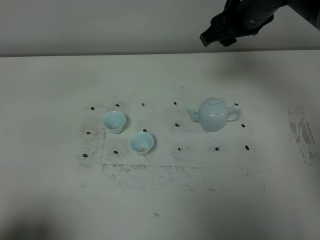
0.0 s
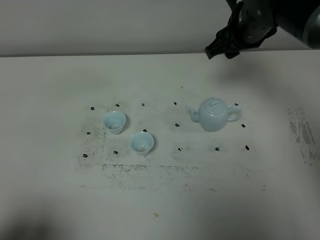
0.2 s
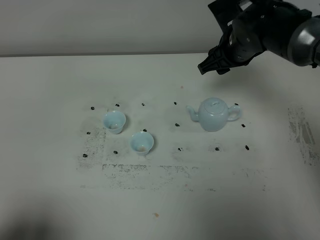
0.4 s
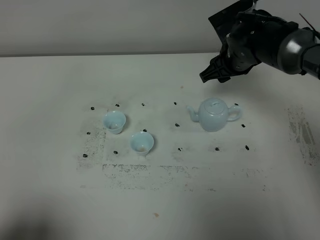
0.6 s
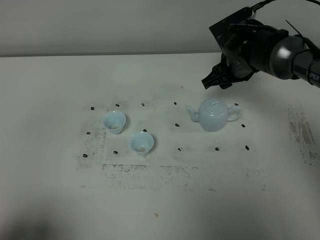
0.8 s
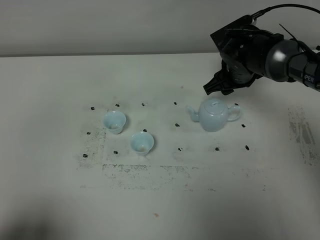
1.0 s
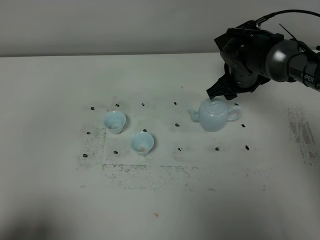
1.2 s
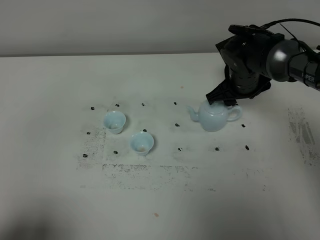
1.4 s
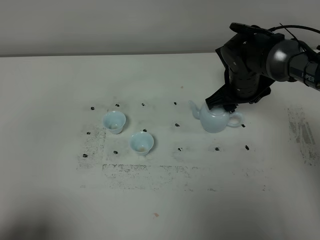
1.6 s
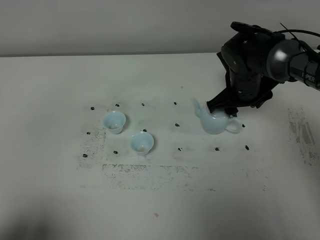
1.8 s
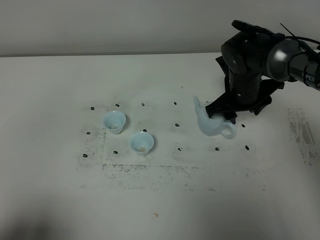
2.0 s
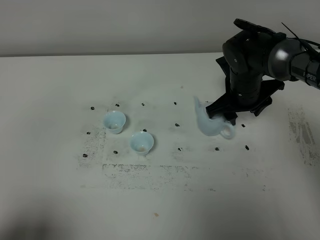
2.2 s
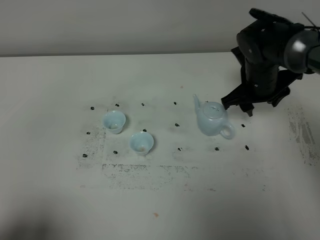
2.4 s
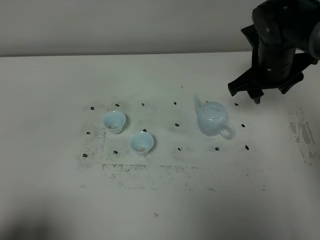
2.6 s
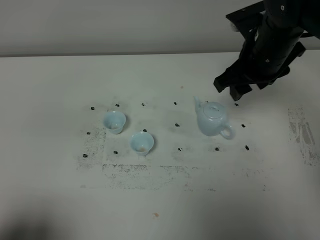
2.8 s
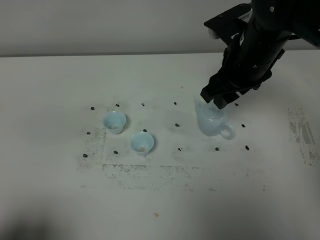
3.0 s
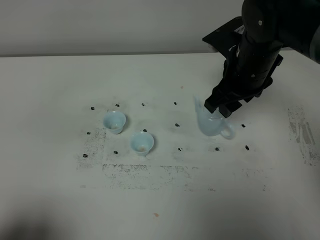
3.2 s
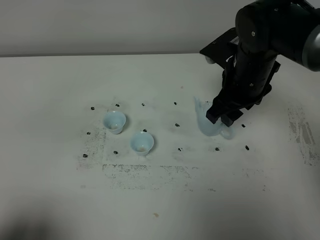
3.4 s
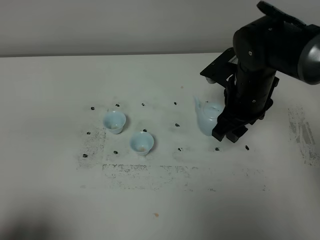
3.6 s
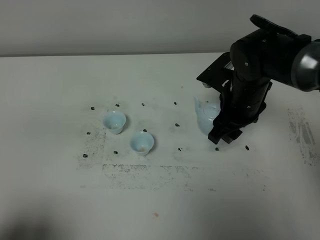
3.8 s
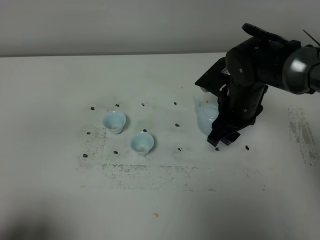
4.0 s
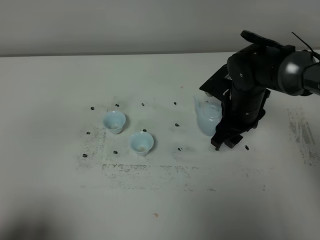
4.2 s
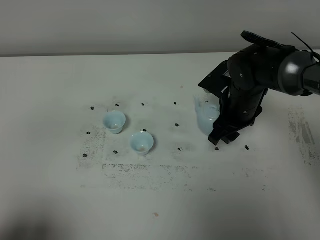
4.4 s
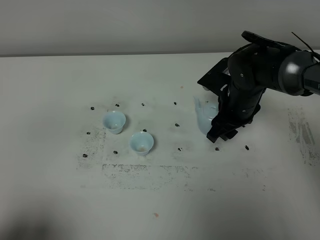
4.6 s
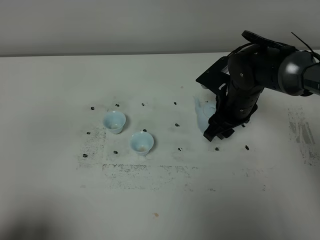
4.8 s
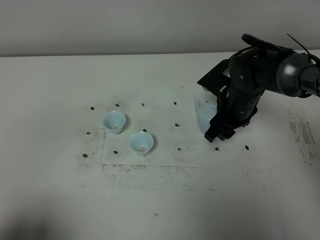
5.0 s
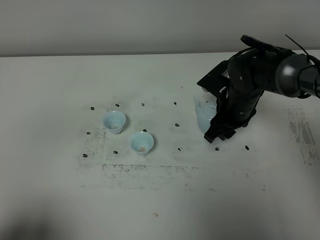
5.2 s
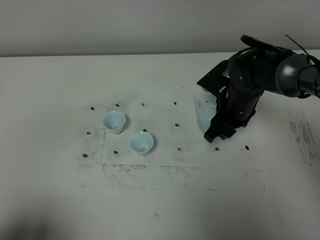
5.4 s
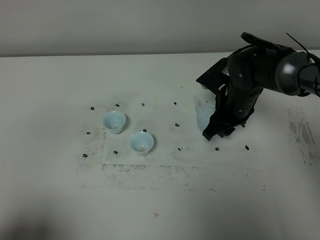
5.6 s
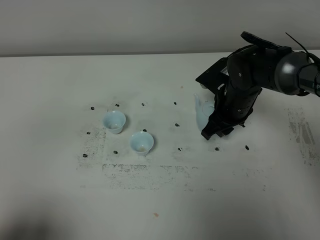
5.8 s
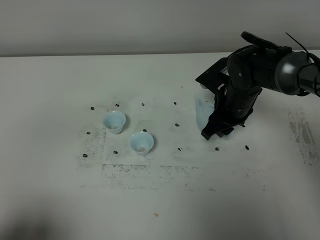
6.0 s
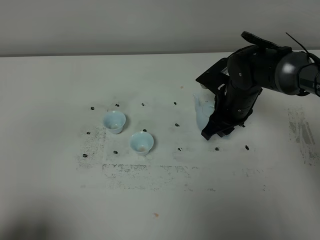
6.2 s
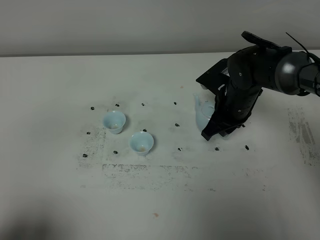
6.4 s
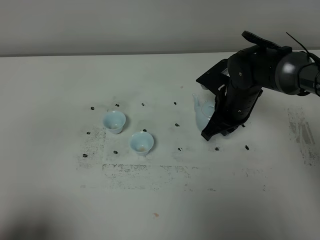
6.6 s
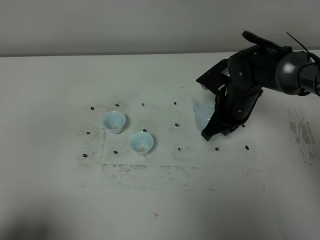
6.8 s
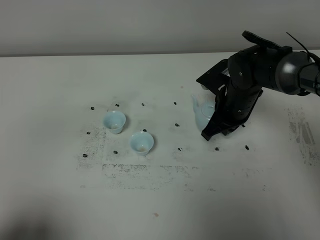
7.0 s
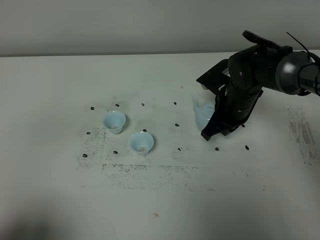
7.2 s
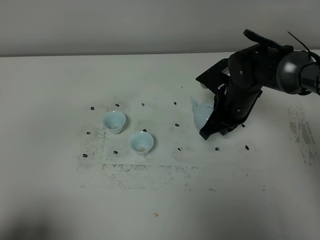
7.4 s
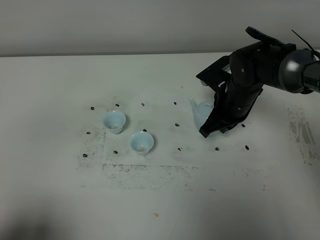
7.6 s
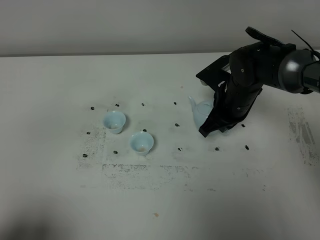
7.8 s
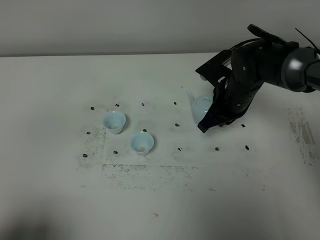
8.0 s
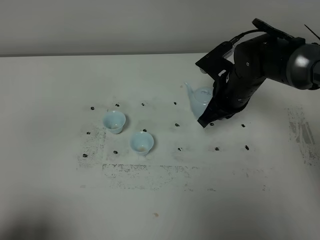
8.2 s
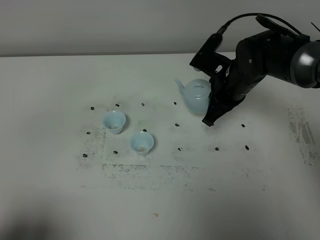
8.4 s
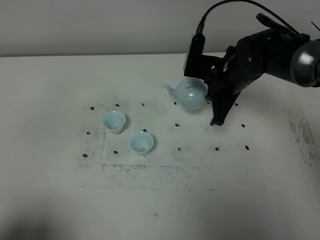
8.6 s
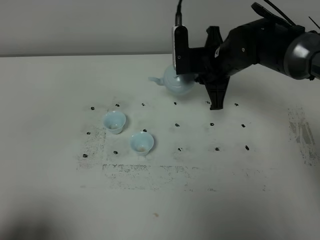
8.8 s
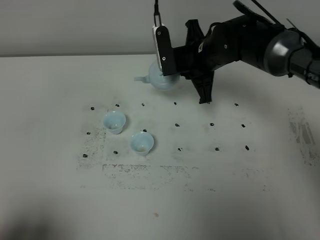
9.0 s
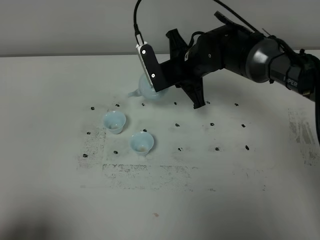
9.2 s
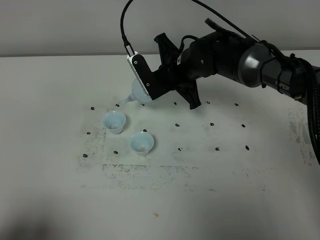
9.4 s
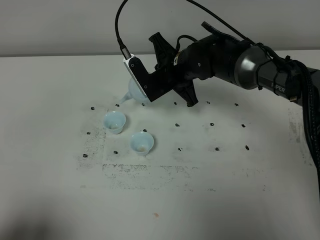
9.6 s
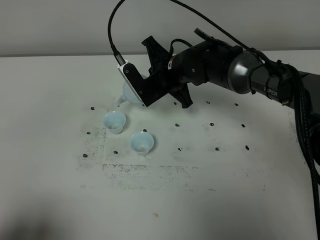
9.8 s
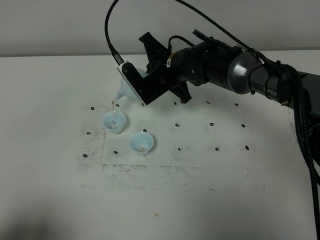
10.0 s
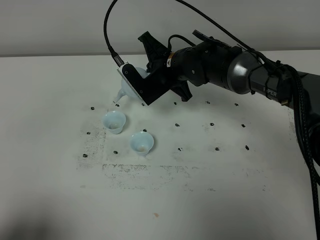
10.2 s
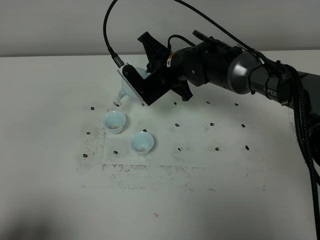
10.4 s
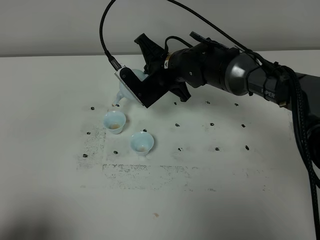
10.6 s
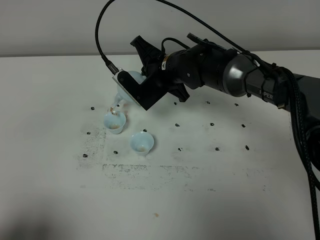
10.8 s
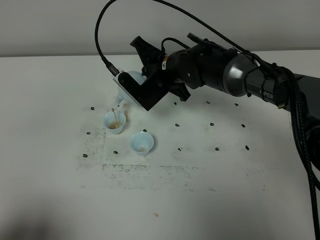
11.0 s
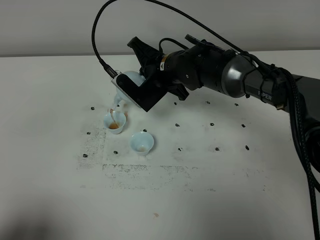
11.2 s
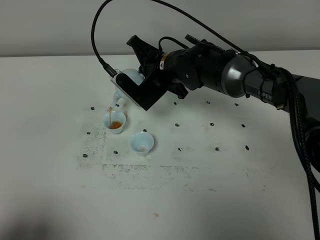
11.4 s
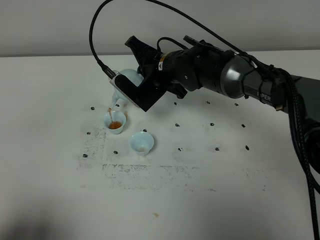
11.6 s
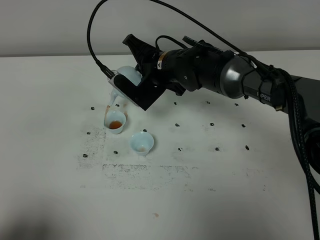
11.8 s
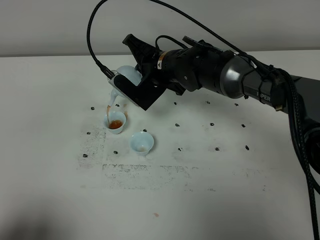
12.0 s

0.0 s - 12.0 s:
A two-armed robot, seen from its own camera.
Task of the whole recording: grasp the blue porcelain teapot and pour the tea into the two blue porcelain teacups one by one, put the blue porcelain teapot back in its original place.
Step, 0.0 s - 8.0 s: Pick up the teapot with the right gripper.
0.0 s - 1.6 s: The right gripper shifts approximately 15 cm downward.
1.6 s - 3.0 s: The right gripper is displaced upward and backward by roughly 15 cm.
3.0 s - 4.4 s: The right gripper moves downward, about 15 cm.
4.4 s - 6.0 s: The grippers move only a little.
6.0 s - 7.6 s: The right gripper closes up.
7.6 s - 9.0 s: The right gripper goes roughly 10 cm upward and to the left.
9.0 s - 10.4 s: The right gripper is displaced to the left by approximately 5 cm.
10.4 s - 12.0 s: The grippers make only small movements.

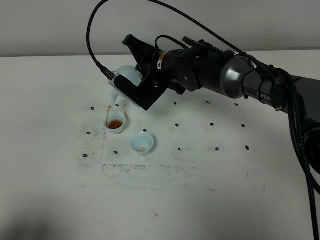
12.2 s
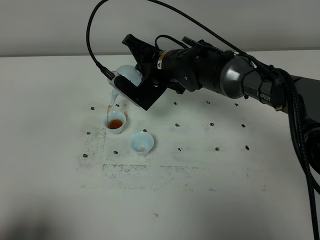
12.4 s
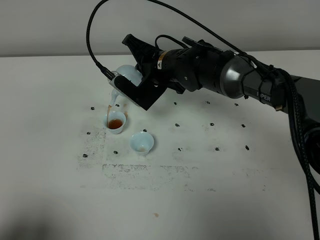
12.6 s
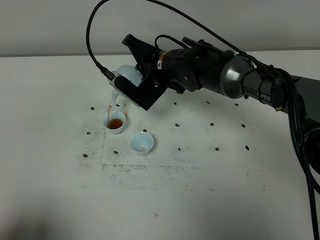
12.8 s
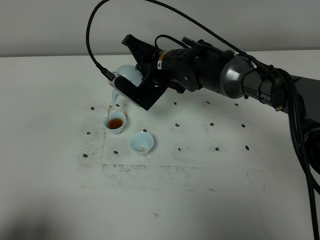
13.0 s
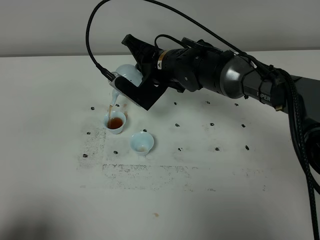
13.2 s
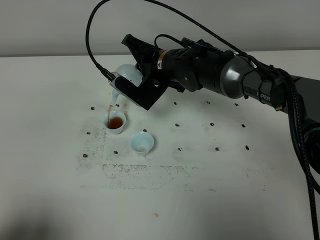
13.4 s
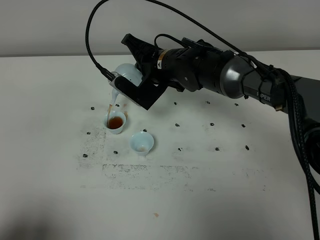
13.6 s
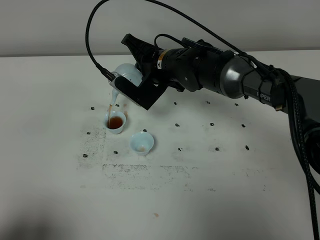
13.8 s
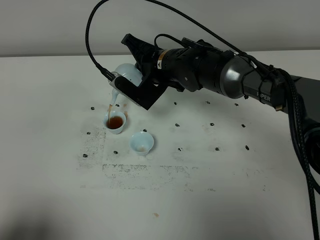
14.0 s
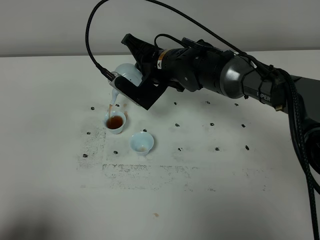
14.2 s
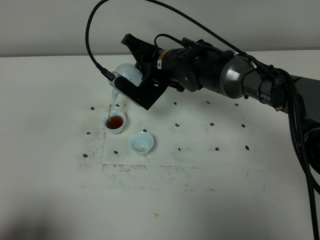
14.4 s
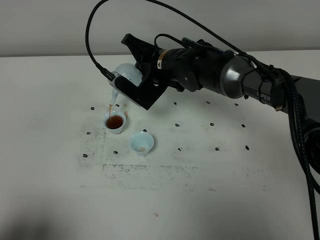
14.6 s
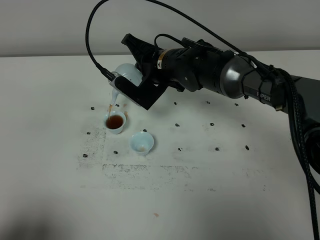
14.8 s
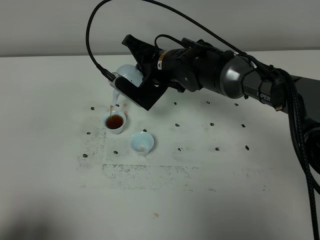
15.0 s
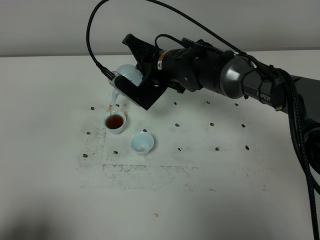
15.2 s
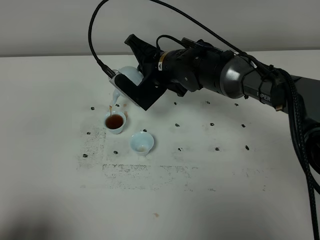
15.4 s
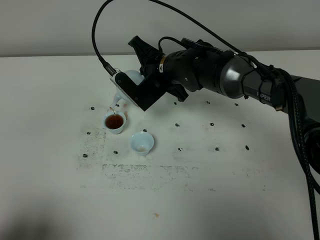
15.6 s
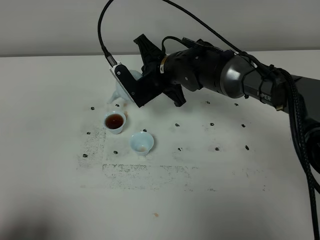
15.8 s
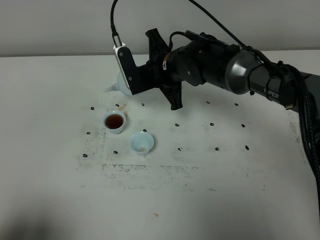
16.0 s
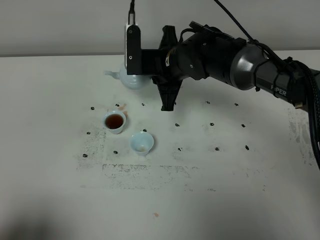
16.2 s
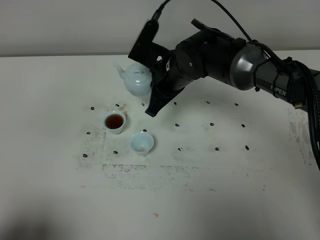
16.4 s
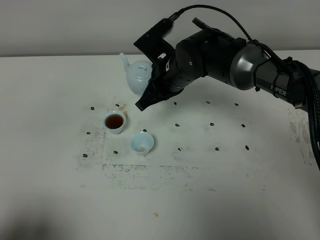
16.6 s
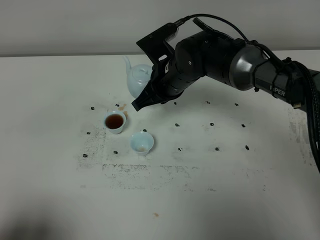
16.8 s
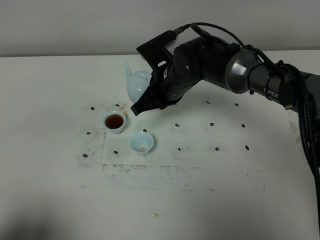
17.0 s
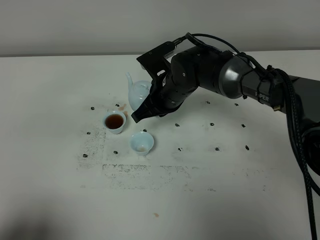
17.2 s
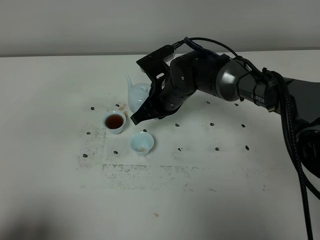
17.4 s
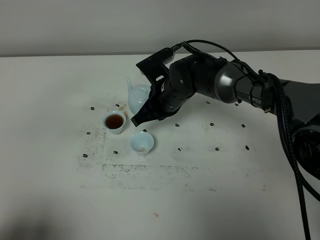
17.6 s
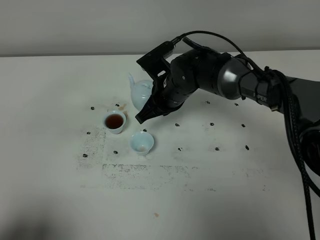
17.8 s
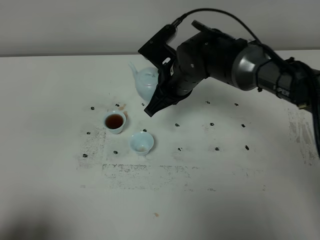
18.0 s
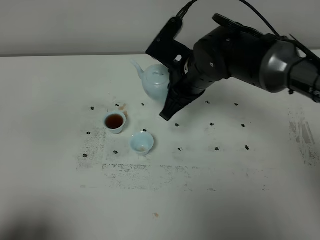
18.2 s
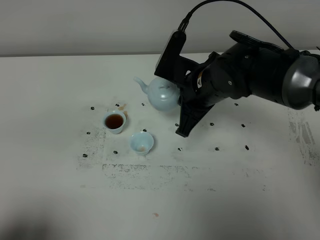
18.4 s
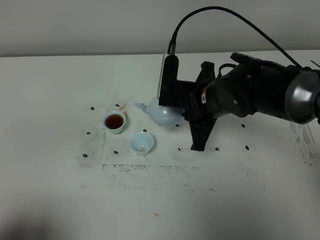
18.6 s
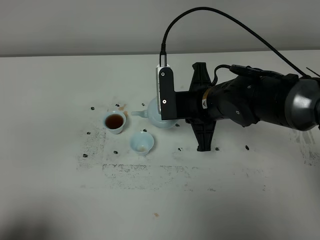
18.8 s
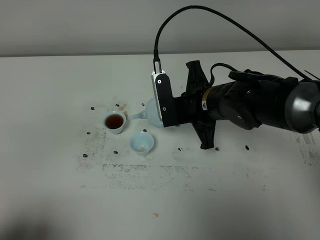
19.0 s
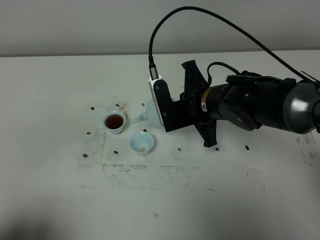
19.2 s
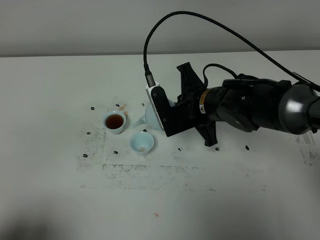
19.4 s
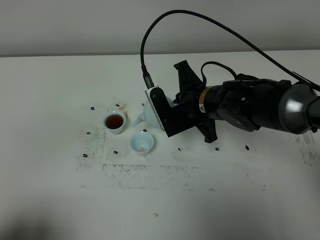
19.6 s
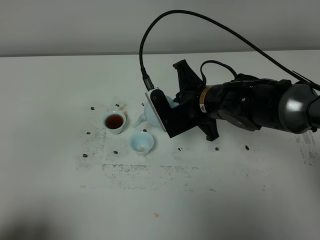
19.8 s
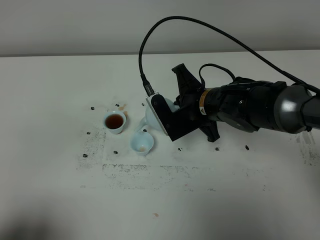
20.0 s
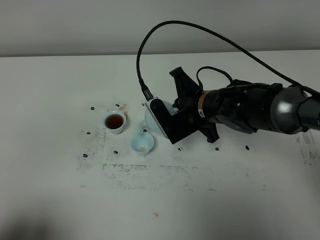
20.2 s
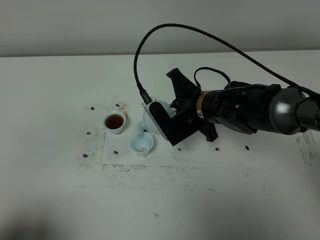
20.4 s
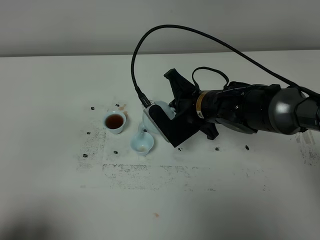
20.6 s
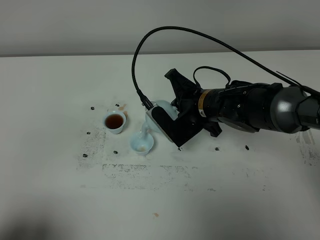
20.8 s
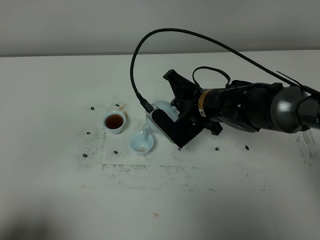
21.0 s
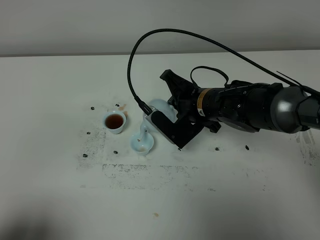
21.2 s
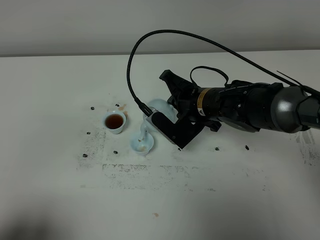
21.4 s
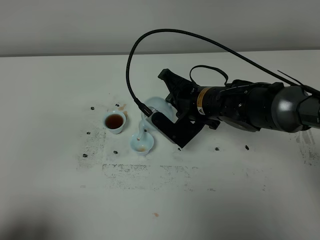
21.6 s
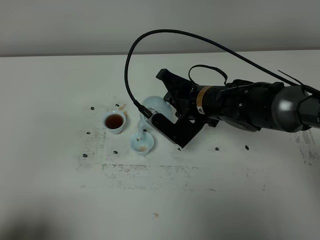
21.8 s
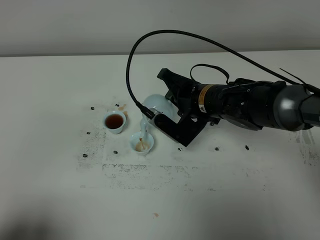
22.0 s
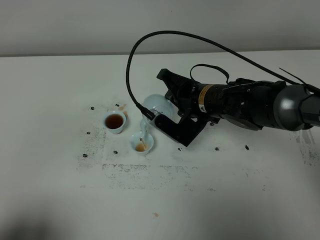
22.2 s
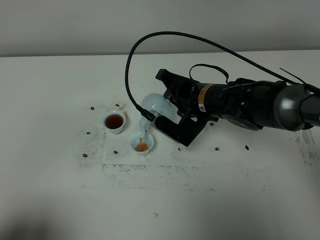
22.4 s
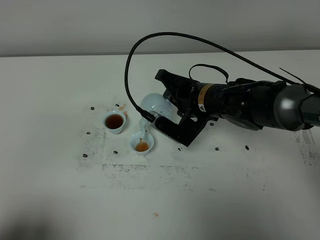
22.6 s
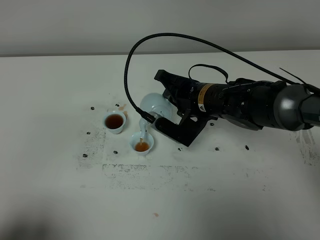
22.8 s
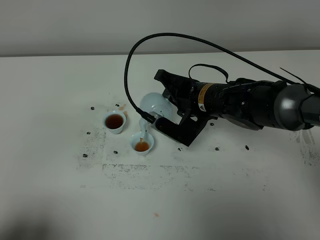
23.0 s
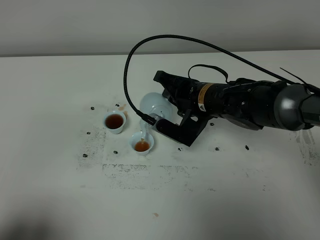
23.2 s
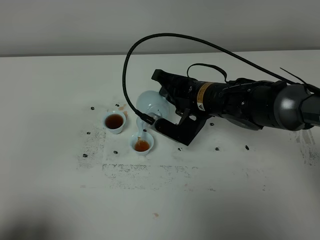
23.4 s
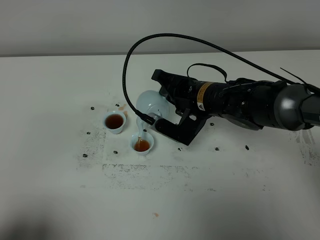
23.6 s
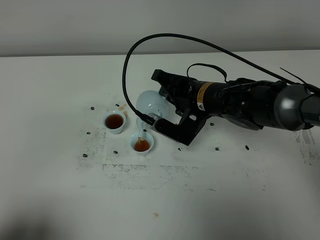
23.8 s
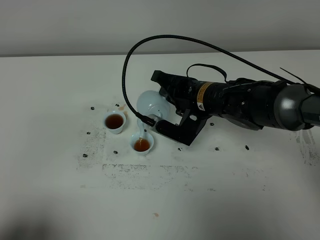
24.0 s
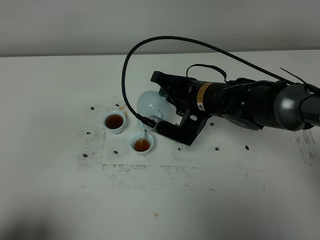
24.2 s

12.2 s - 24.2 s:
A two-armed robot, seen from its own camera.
Task of the whole recording: grasp the blue porcelain teapot and pour the tea into the two blue porcelain teacups one by one, put the blue porcelain teapot back in its original place.
Step, 12.2 s - 15.8 s: Pour tea into the teacup with the right gripper.
12.2 s - 15.2 s: The two grippers keep their place.
16.6 s - 18.2 s: The right gripper travels downward and back again, about 5 cm each way.
18.2 s - 19.8 s: The right gripper changes place by some 5 cm.
21.2 s - 22.6 s: The grippers make only small movements.
22.6 s - 24.2 s: There are only small adjustments of the grippers.
